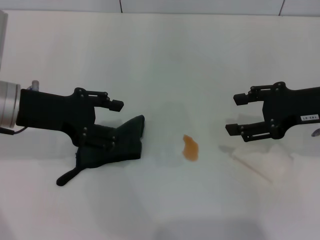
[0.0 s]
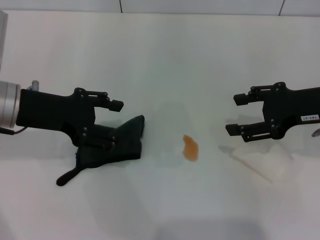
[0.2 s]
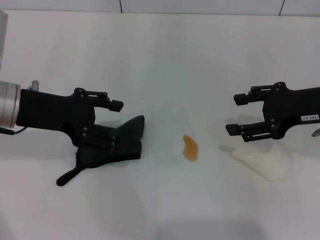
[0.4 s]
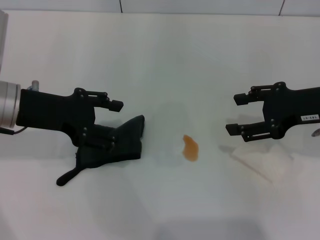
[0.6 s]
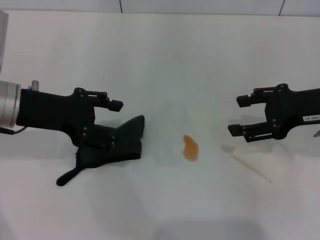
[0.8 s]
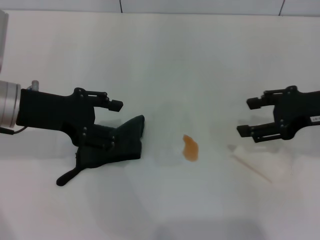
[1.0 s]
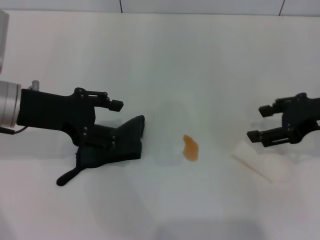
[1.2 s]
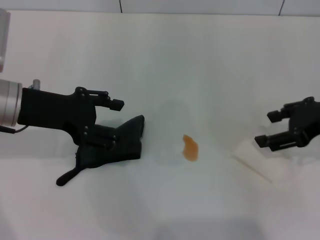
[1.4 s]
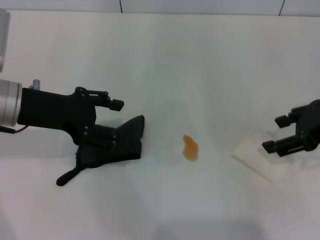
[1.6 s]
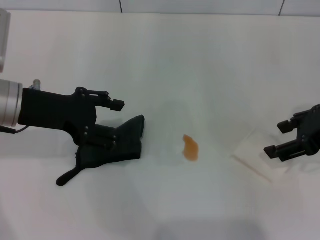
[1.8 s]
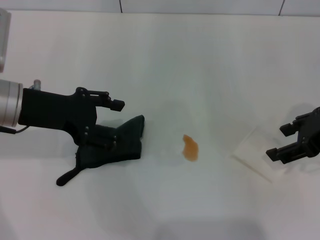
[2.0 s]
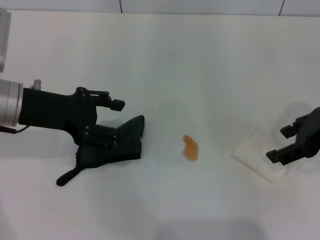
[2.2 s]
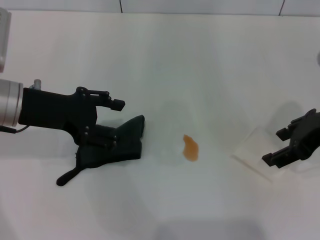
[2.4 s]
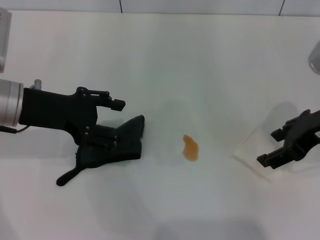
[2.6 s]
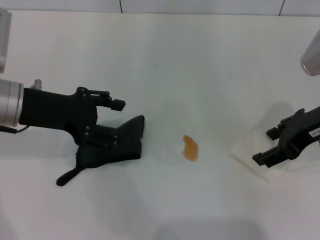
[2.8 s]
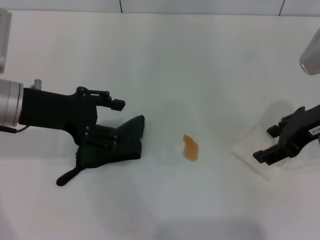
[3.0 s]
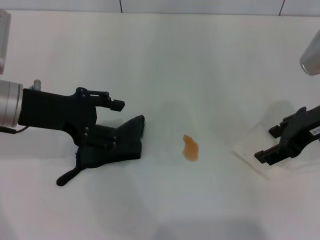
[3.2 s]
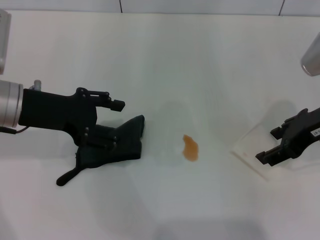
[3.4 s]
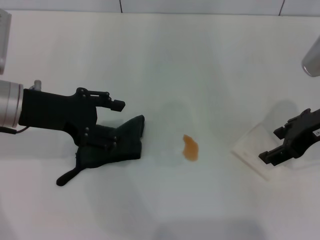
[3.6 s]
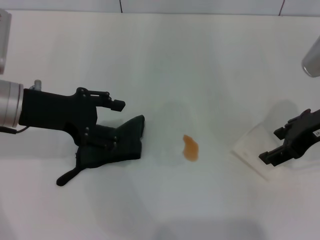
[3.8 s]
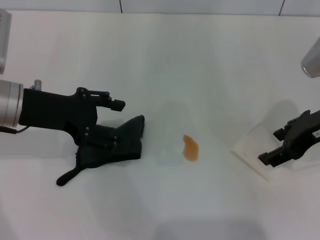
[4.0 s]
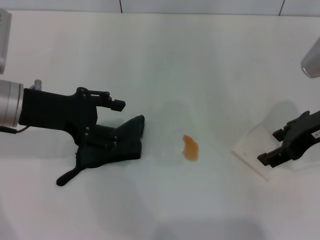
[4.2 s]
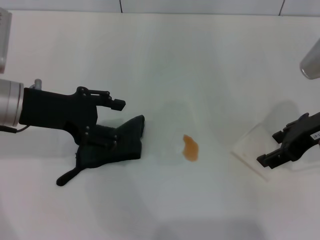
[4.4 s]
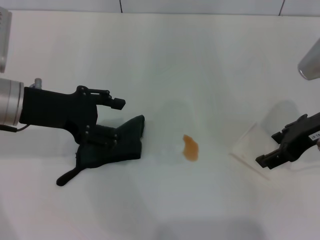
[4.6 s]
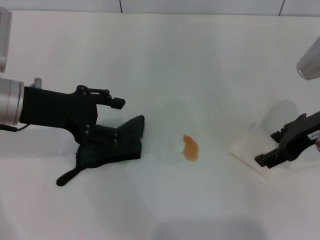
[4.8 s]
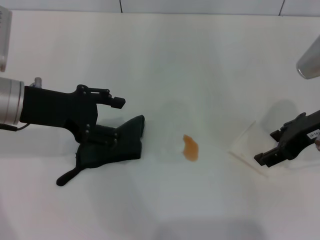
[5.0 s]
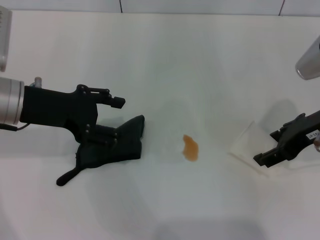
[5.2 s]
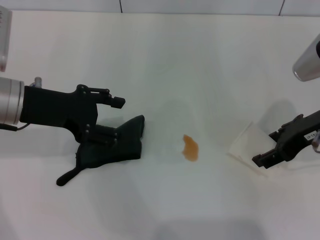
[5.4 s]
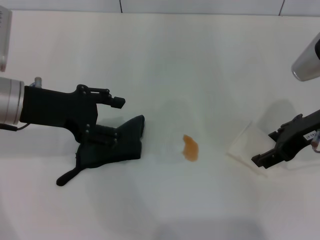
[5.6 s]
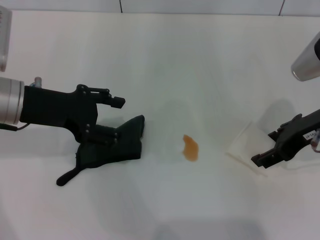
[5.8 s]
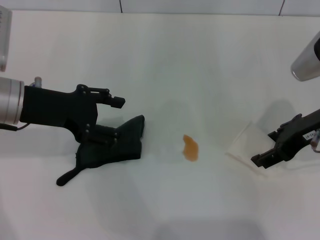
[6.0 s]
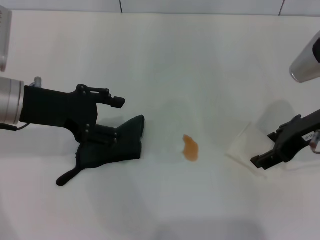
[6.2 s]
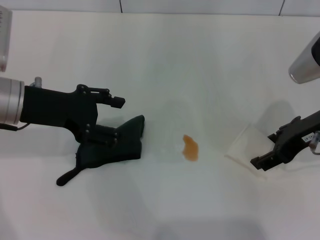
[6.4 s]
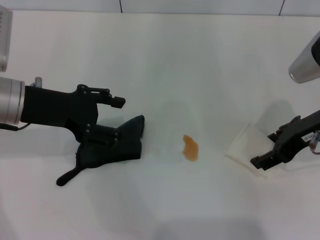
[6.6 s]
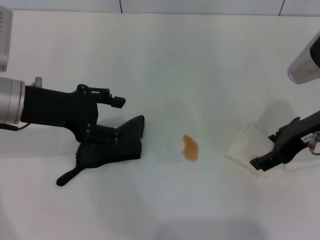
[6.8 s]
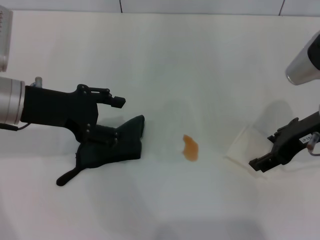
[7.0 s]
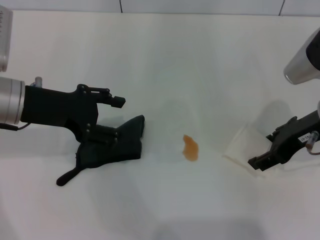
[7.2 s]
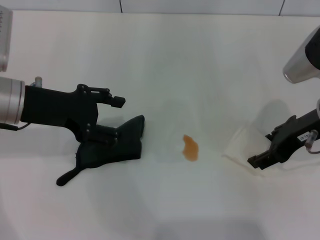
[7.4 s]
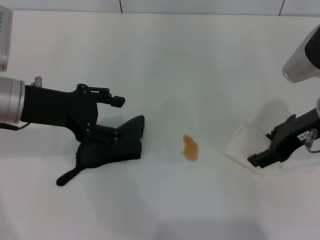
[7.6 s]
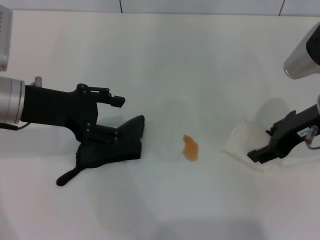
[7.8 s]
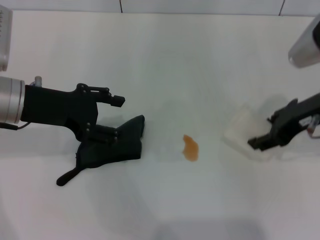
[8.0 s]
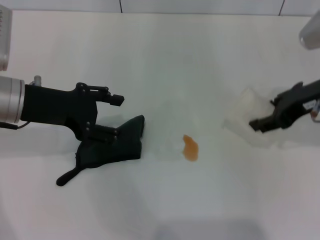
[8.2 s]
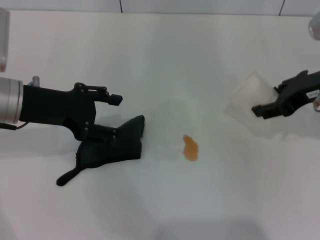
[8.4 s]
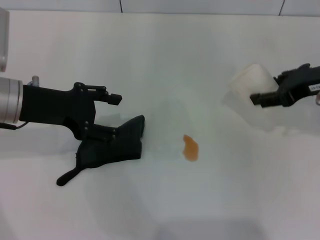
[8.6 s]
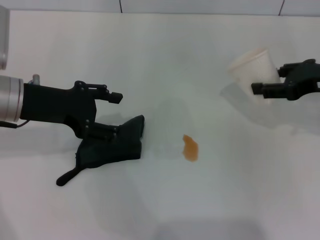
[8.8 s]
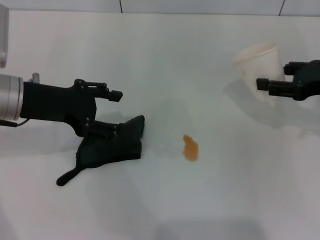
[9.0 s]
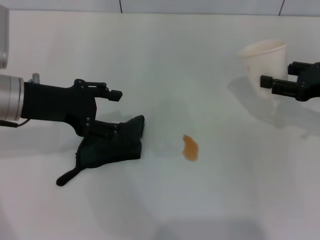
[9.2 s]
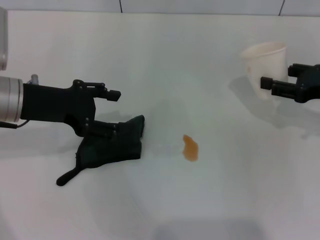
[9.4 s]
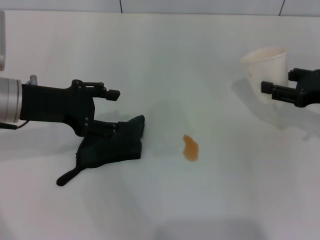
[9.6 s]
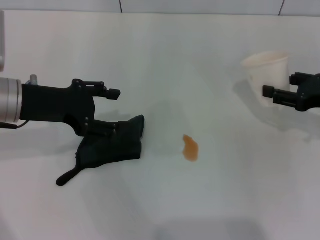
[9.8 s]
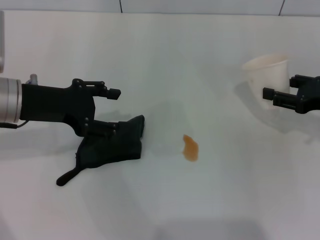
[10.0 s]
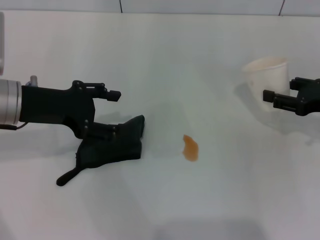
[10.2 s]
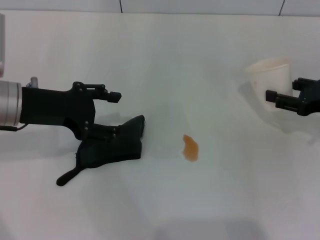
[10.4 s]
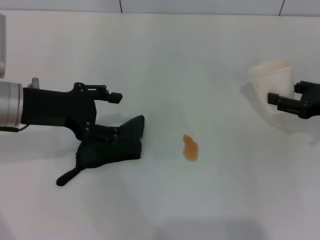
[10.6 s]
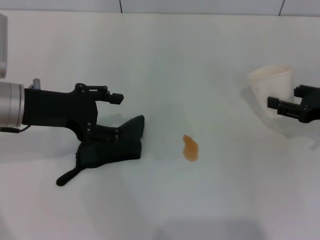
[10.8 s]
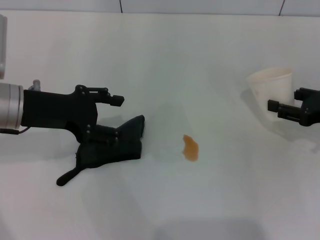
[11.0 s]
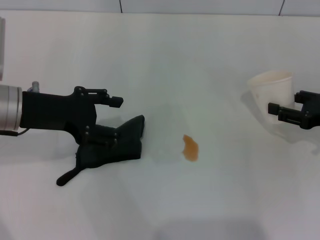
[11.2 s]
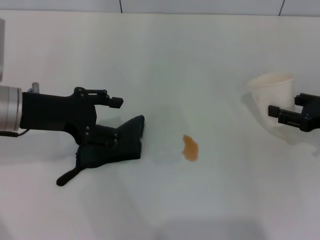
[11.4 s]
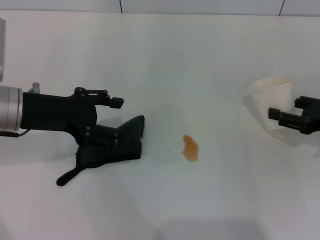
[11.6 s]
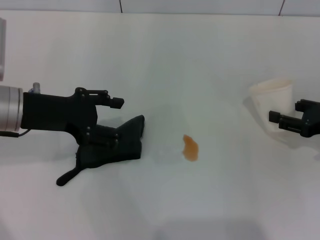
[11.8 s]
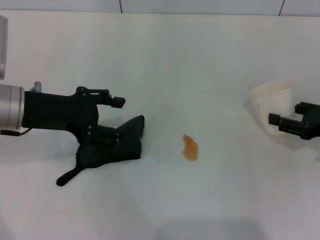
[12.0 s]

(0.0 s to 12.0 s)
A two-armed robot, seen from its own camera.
Step, 0.0 s - 6.4 s: Grasp the paper cup with the right gripper.
1.6 s - 3.0 s: The grippers stay close to where they were, moving slightly.
3.0 s - 4.4 s: The two grippers keep their place.
4.4 s - 6.0 s: The two grippers keep their place.
6.0 s - 7.6 s: The two grippers keep their place.
7.6 s - 9.0 s: The right gripper shifts about 10 cm to the right.
9.0 s - 10.4 s: The right gripper heads downward, covering about 5 cm.
10.4 s - 12.0 s: The grippers stay close to where they were, moving slightly.

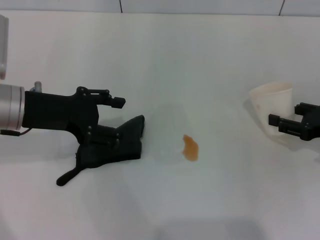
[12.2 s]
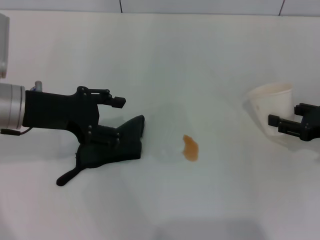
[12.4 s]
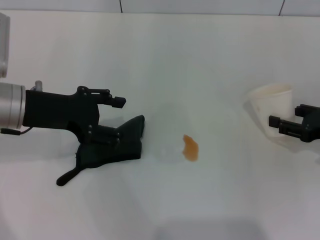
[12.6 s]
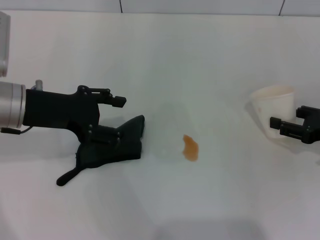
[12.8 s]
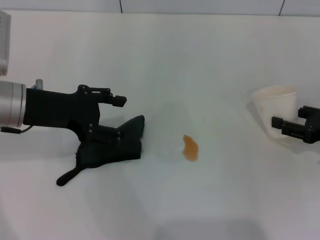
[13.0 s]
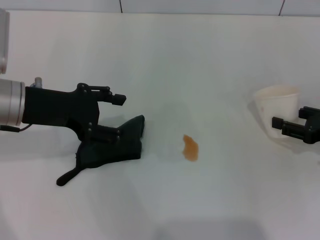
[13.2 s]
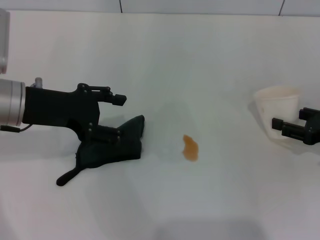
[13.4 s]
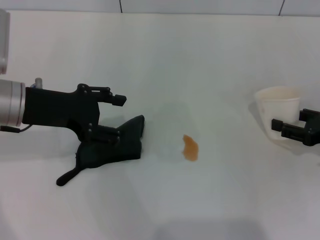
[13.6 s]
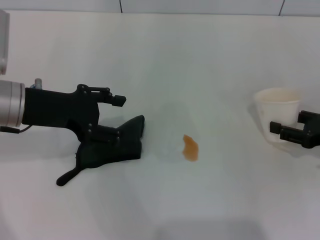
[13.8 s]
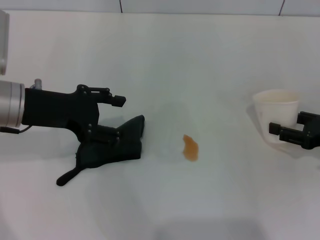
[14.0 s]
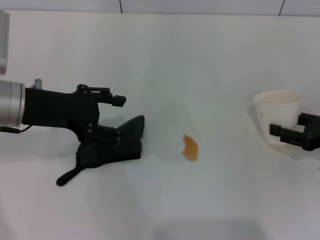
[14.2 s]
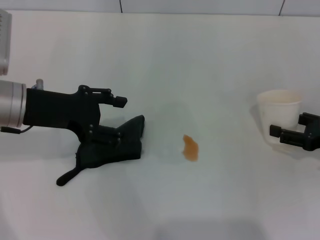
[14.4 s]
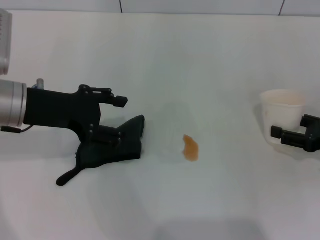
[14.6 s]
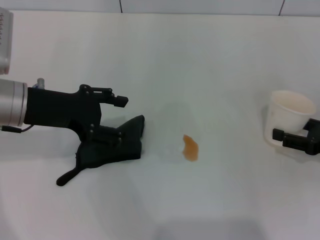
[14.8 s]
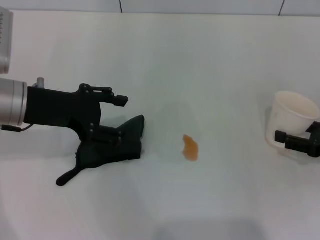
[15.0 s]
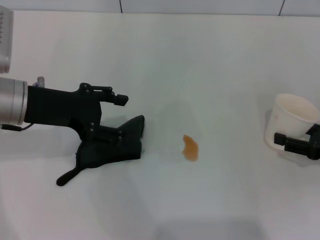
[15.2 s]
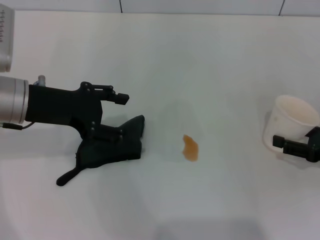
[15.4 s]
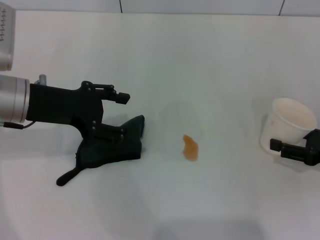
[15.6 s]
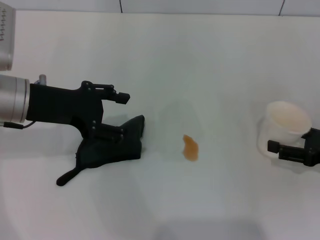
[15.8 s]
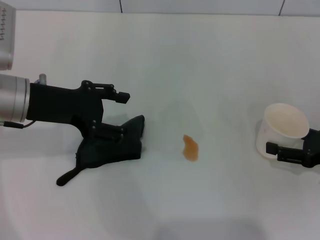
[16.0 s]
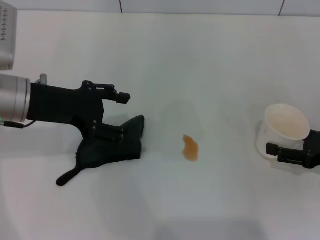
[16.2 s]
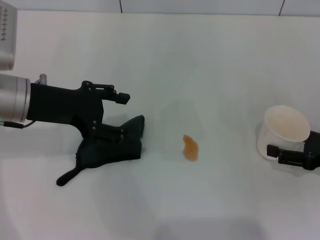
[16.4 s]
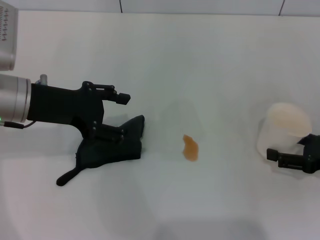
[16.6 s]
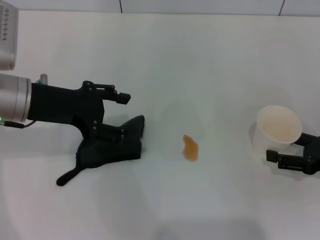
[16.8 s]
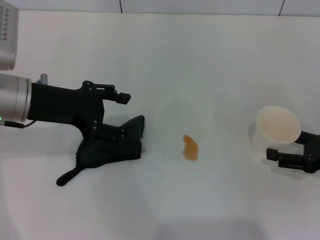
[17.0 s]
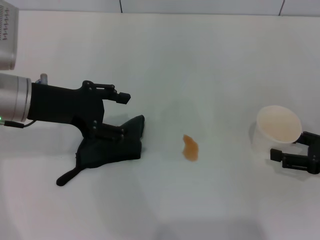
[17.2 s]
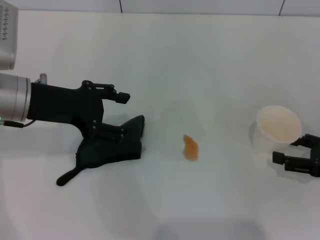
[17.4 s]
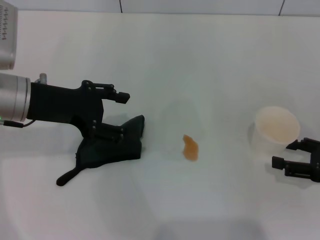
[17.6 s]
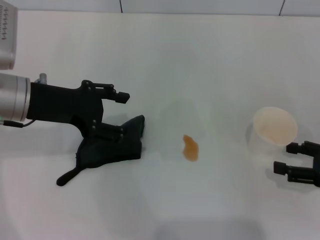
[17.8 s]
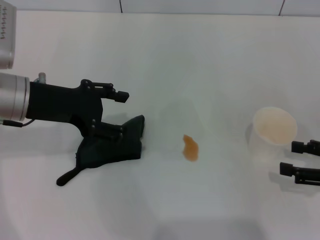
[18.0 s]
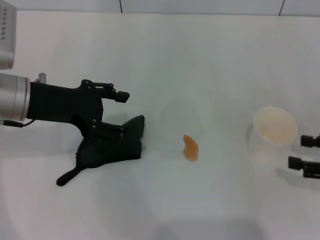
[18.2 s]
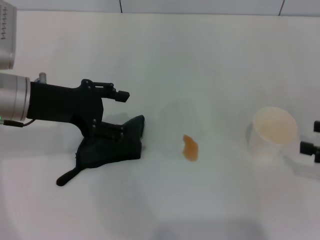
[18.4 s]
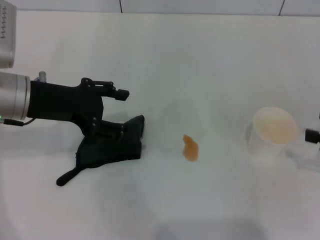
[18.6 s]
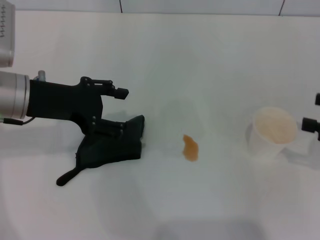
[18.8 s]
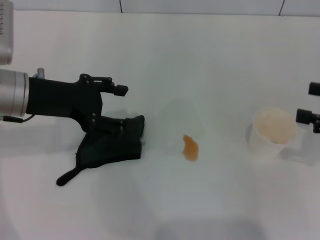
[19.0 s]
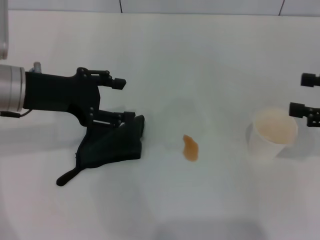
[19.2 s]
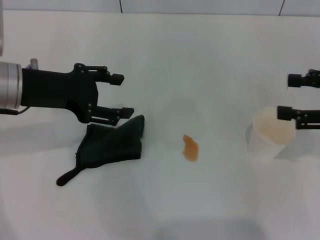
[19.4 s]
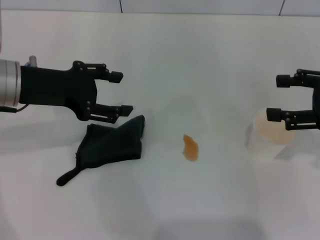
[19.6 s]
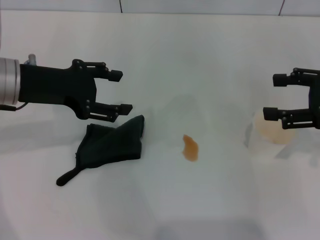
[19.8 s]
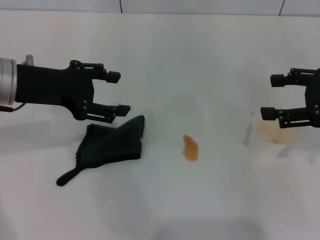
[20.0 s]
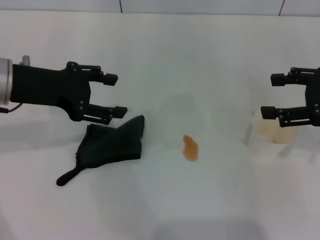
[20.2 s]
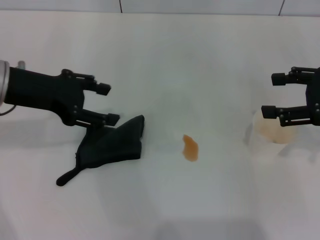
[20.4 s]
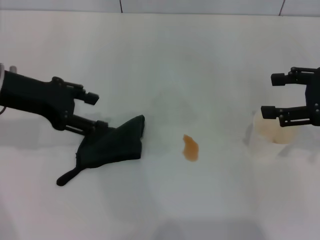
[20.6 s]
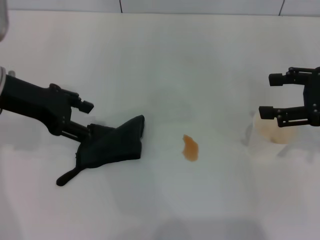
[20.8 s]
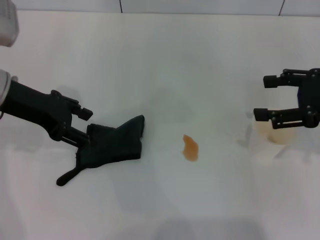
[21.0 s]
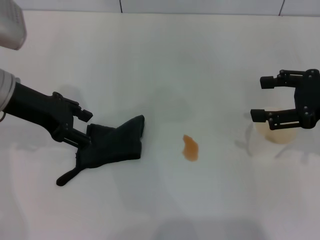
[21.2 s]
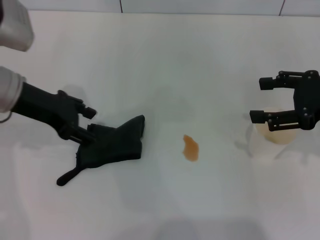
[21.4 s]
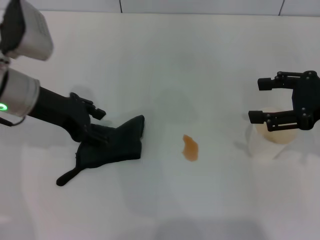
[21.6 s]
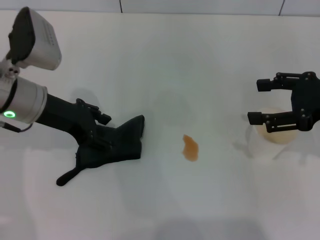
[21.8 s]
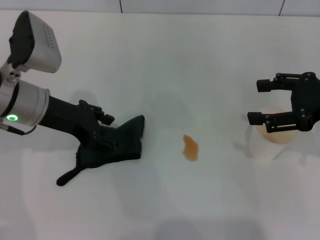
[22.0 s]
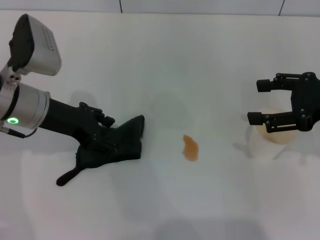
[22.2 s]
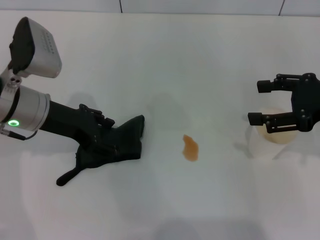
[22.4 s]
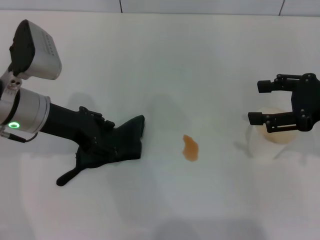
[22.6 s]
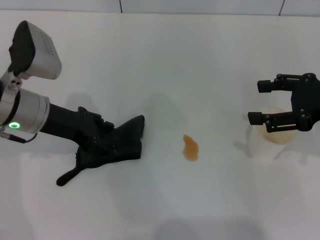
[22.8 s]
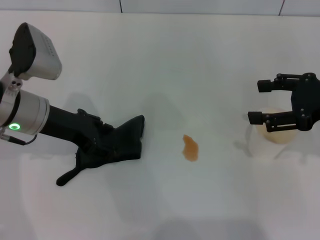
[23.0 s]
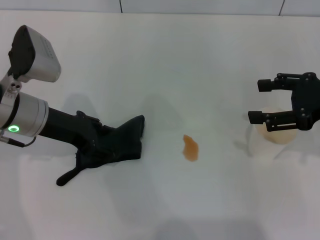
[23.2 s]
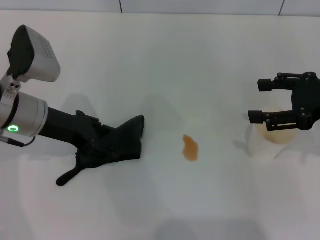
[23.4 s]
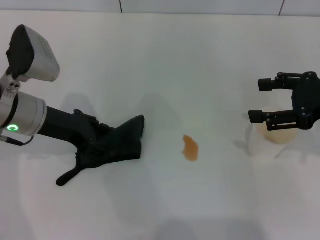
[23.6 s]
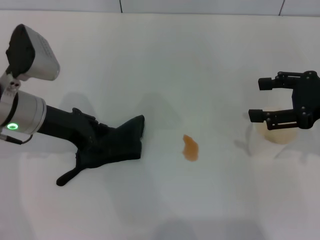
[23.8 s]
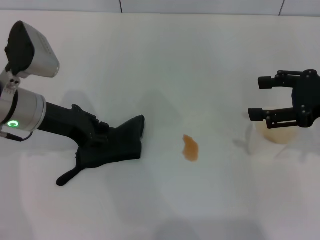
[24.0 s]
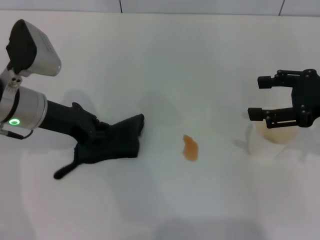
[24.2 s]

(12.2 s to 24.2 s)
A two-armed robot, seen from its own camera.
Step, 12.2 s - 17.8 s: Stand the paper cup upright with the right gripper.
Step, 18.0 s - 24.2 s: Grasp the rag with the left gripper.
12.2 s - 13.8 s: Neither gripper changes place.
13.8 s - 15.2 s: The right gripper opens its fingers.
15.2 s - 16.6 s: The grippers make only small movements.
16.6 s - 18.2 s: The right gripper shifts by about 5 cm.
18.2 s - 19.8 s: The right gripper goes about 10 cm upward and forward.
21.2 s - 22.6 s: The left gripper moves approximately 5 cm.
22.6 s - 24.2 s: The left gripper closes up.
